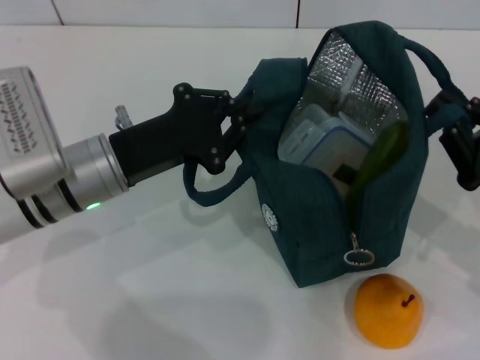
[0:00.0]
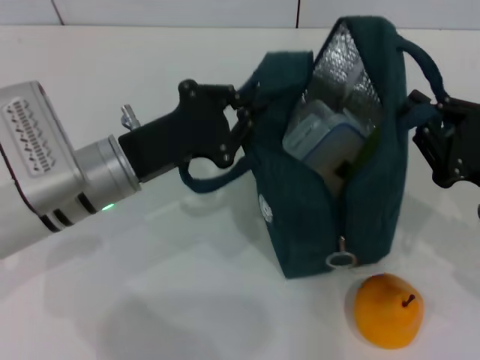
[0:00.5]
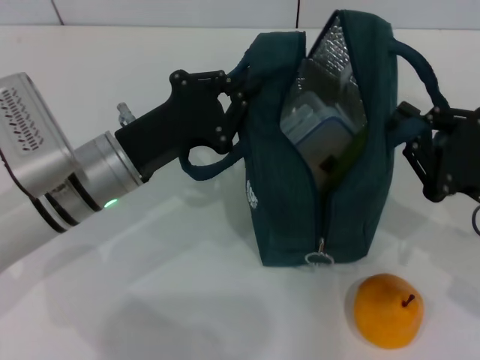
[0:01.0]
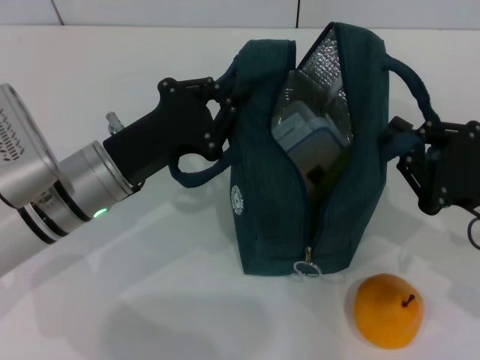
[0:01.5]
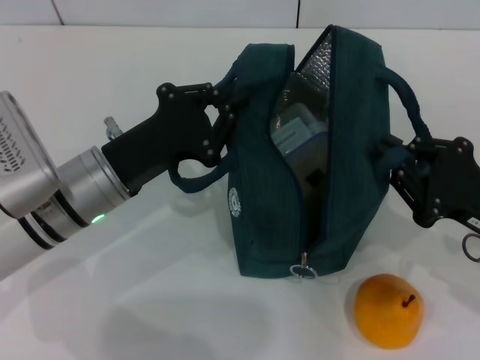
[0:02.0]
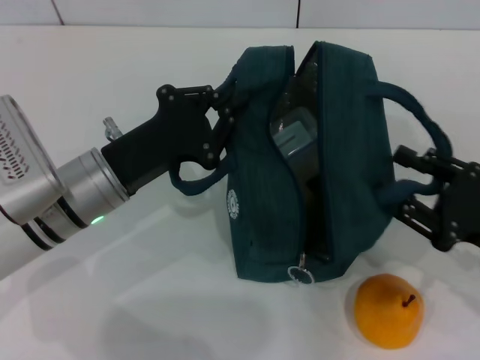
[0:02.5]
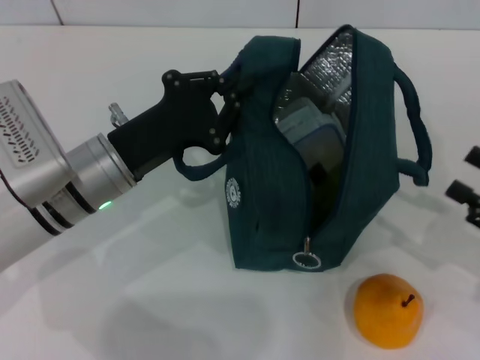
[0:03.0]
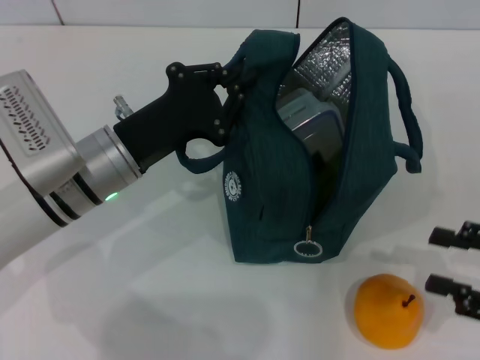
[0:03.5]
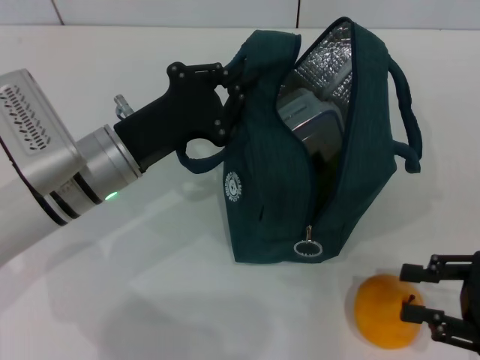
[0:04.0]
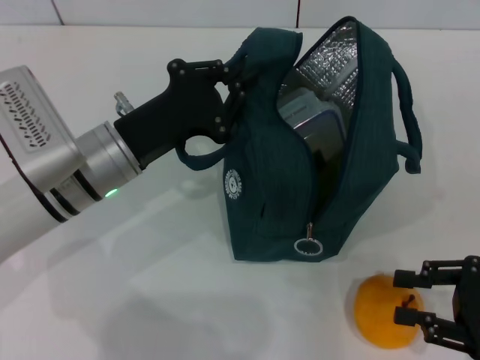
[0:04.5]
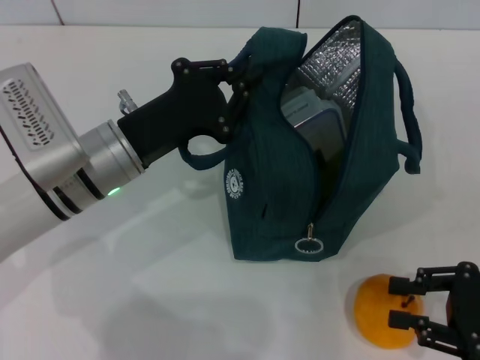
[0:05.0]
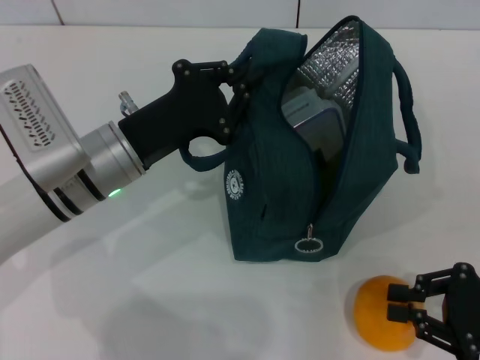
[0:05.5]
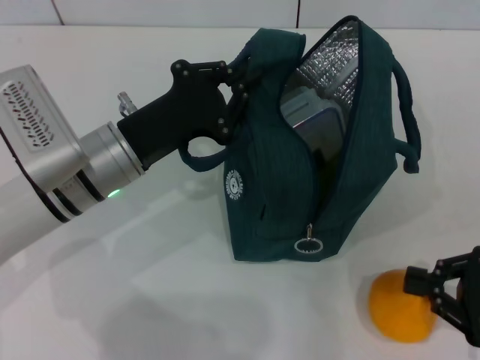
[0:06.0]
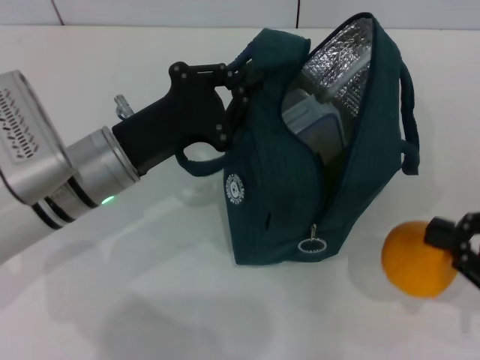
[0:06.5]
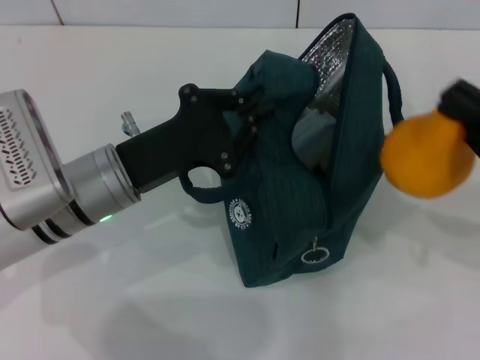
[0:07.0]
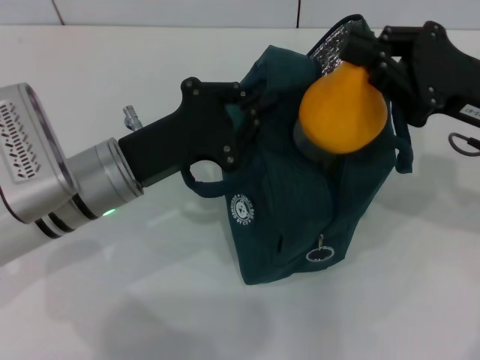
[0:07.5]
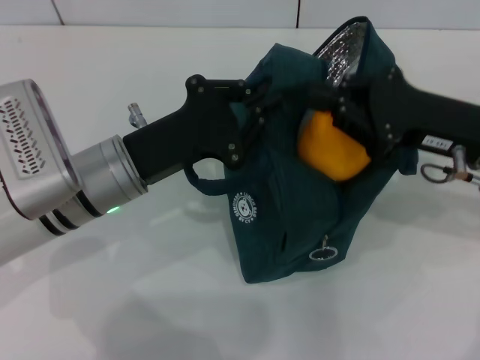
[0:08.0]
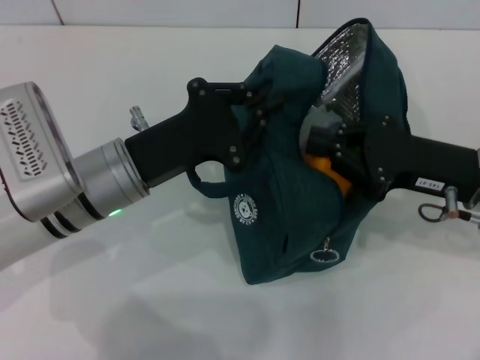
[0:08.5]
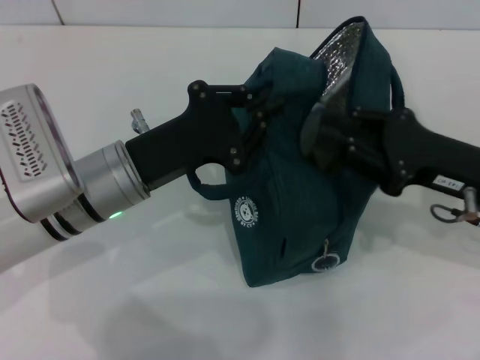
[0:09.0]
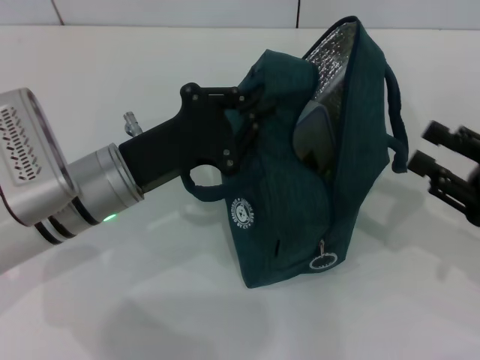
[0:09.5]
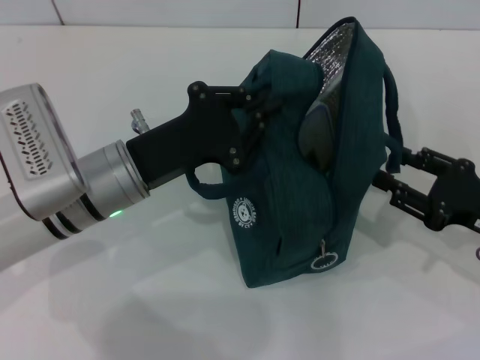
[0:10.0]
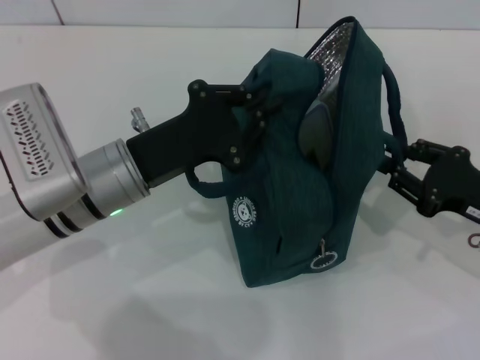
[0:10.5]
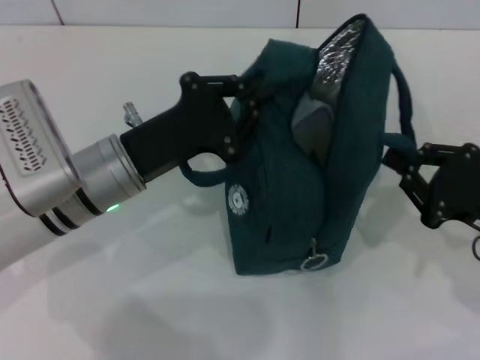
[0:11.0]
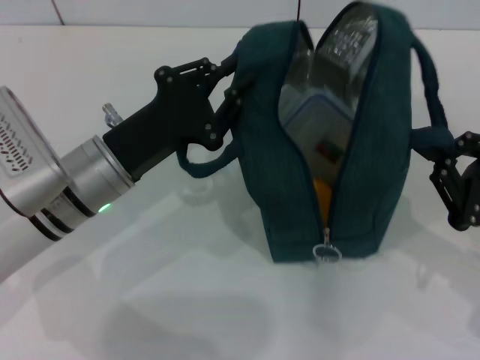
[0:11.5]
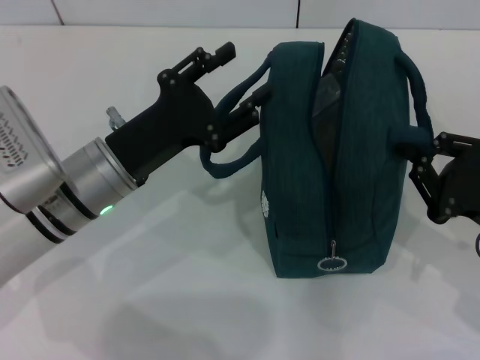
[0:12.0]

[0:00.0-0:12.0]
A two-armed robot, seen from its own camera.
Step, 0.0 to 5.0 s: Grab the pear with your right hand.
Step, 9.5 to 11.5 s: Hold the lunch bag with your left hand.
2.0 to 4.0 s: The right gripper travels to the right by about 5 cm, and opens its fingers.
4.0 to 6.0 s: The right gripper closes its fingers.
6.0 to 8.0 s: The right gripper is displaced forward, to the left and upward by approximately 15 cm.
8.0 to 10.0 s: The right gripper heads downward, to the right and backward, covering approximately 10 cm, and opens.
10.0 to 12.0 s: The right gripper closes up, while the left gripper opens its fingers.

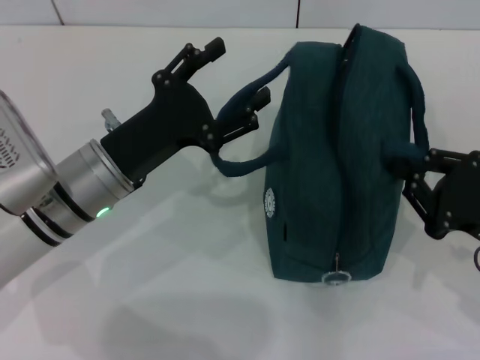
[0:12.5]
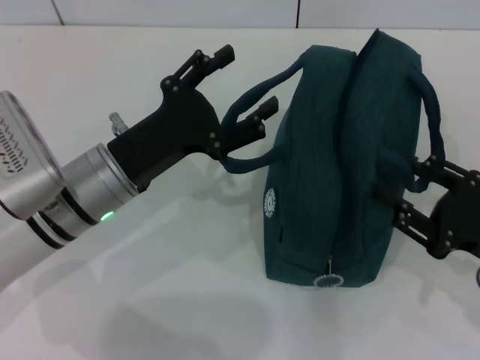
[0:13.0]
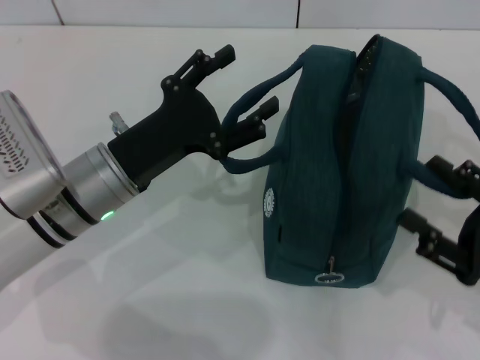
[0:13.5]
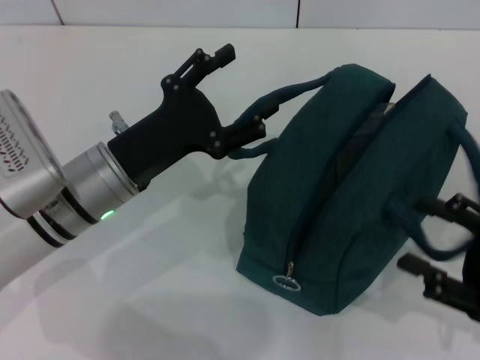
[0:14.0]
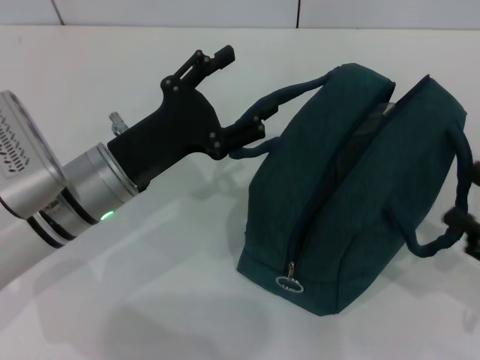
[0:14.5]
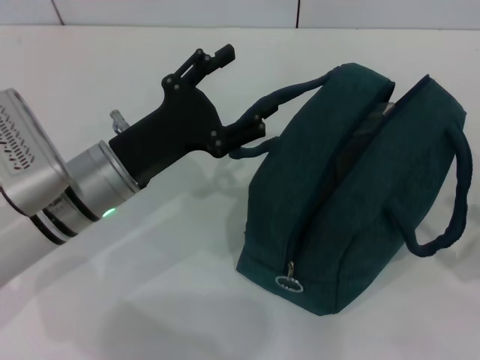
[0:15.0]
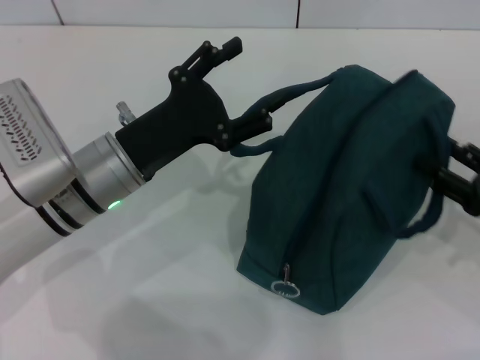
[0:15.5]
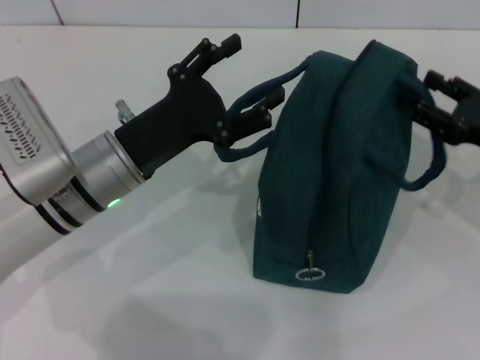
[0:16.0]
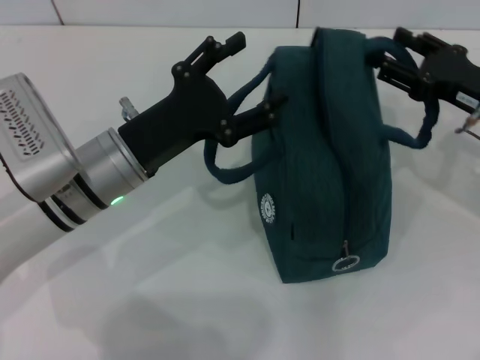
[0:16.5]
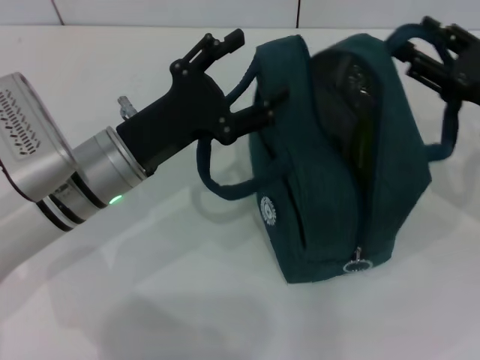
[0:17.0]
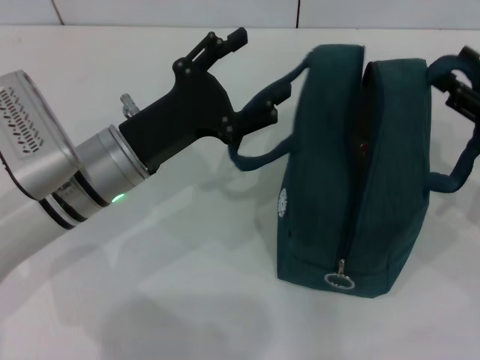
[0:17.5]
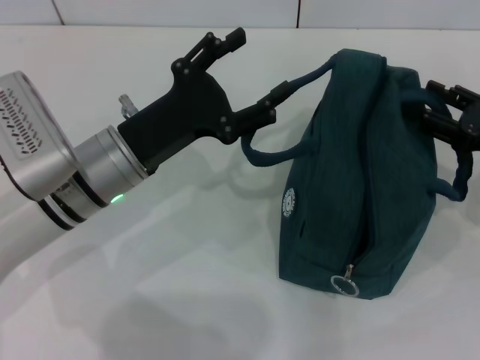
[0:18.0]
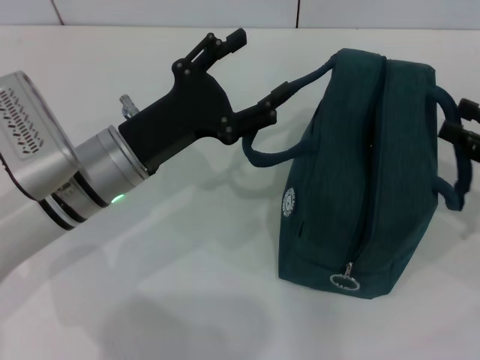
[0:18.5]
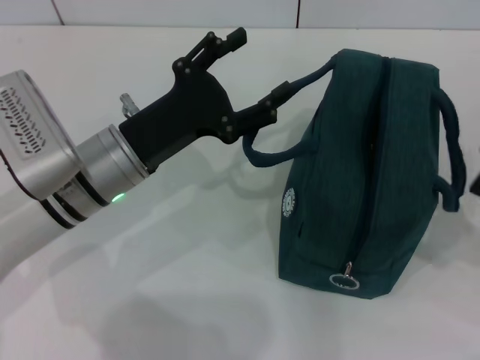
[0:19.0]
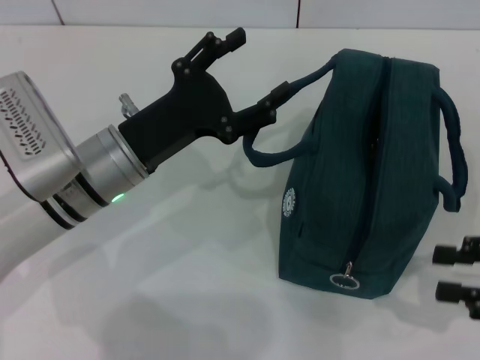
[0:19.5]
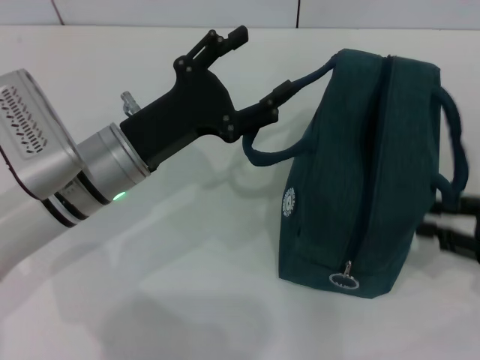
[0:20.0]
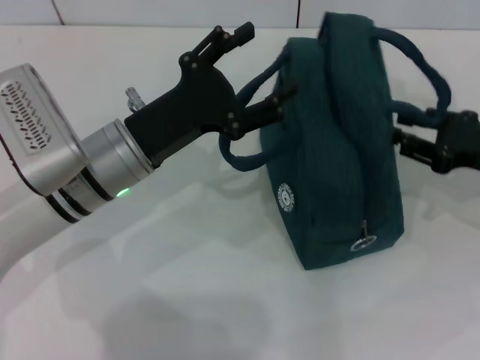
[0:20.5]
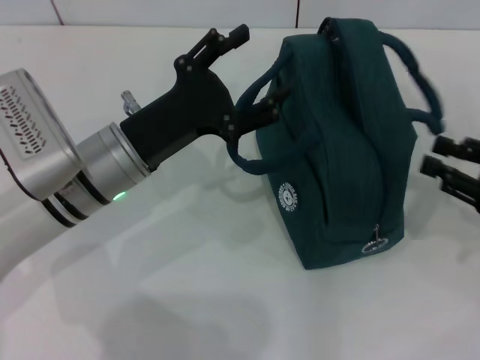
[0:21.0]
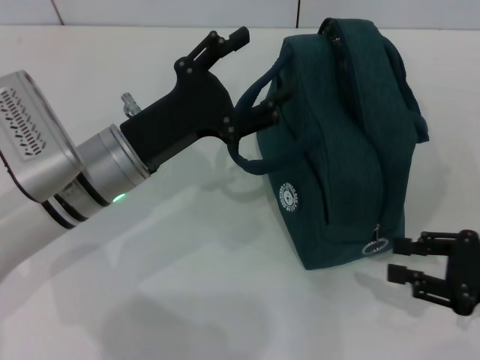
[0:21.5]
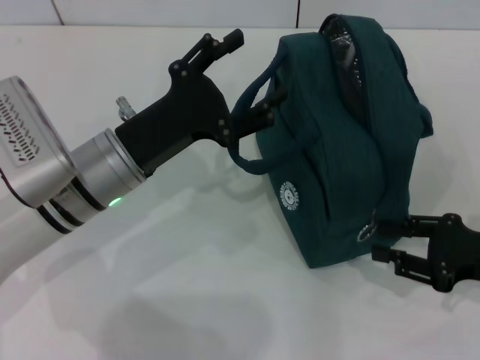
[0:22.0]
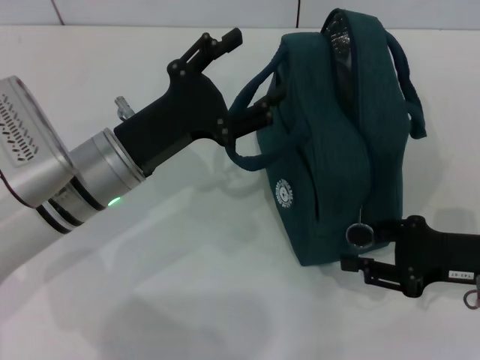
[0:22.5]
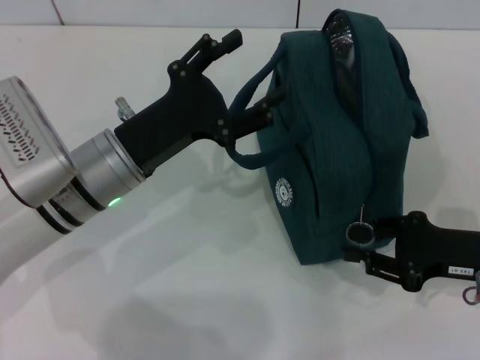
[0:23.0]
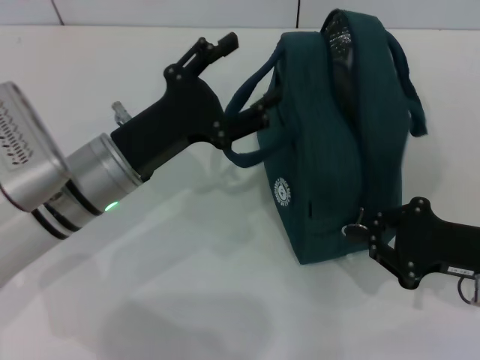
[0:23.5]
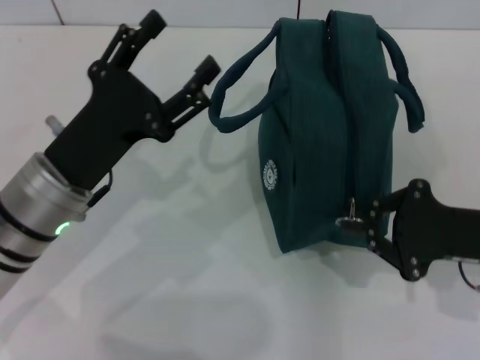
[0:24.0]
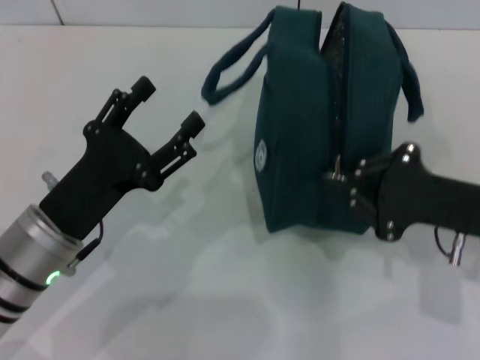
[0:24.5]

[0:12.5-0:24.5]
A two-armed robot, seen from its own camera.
Step, 12.5 to 19.0 s: Hold the lunch bag with your right hand.
12.5 to 14.5 s: The right gripper goes roughly 5 cm backward, and opens its fingers.
14.5 to 16.5 s: The right gripper heads forward, covering approximately 15 cm.
16.5 to 18.5 s: The right gripper is displaced backward and to the right by approximately 10 cm.
18.5 to 20.5 s: The right gripper shifts by roughly 5 cm.
20.5 to 22.5 s: The right gripper shifts approximately 5 cm backward.
22.5 to 24.5 s: The left gripper goes some 5 cm backward. Meanwhile the right gripper closes.

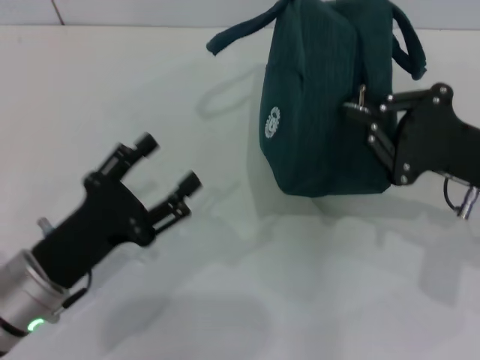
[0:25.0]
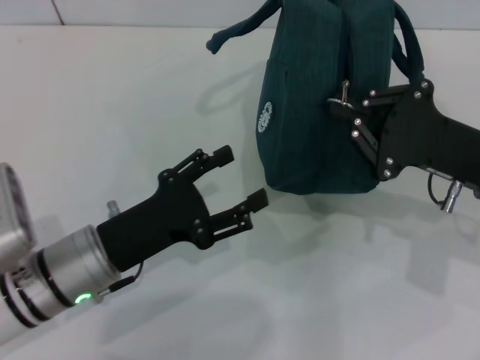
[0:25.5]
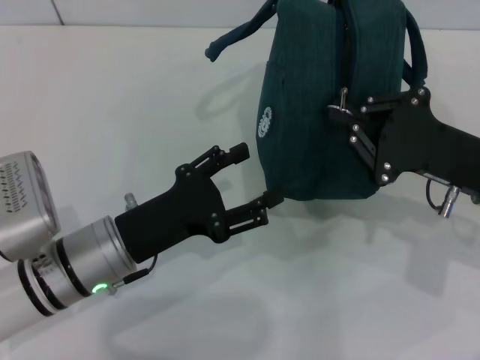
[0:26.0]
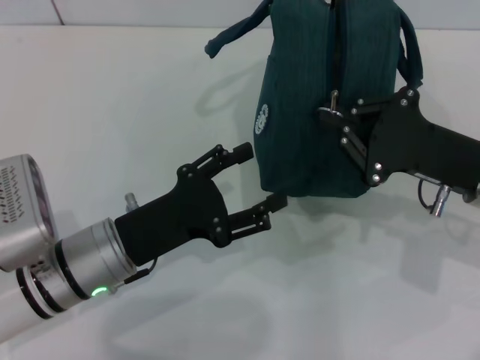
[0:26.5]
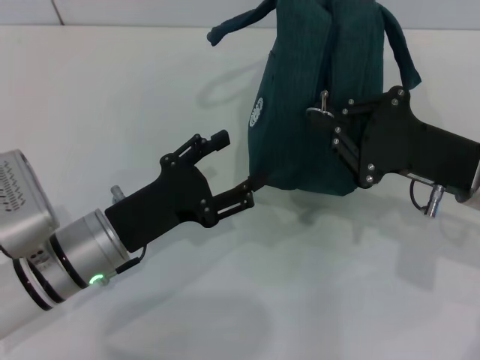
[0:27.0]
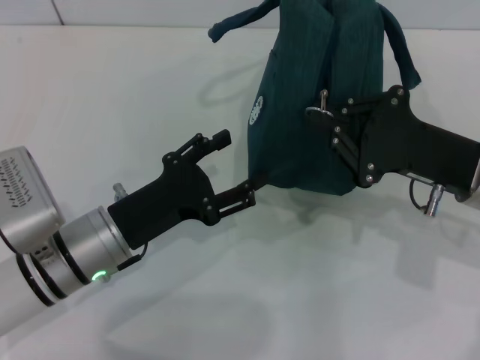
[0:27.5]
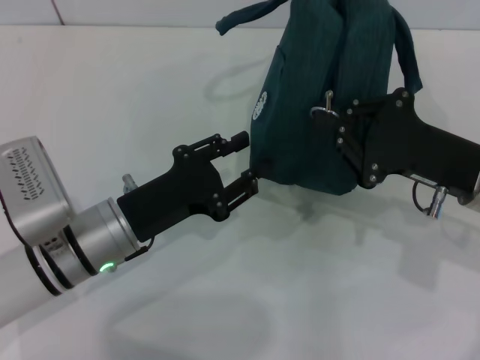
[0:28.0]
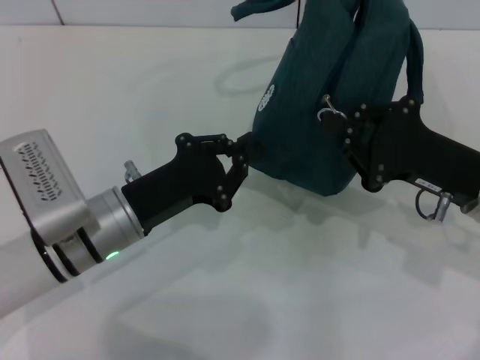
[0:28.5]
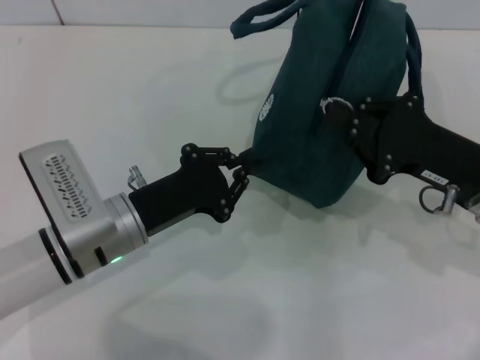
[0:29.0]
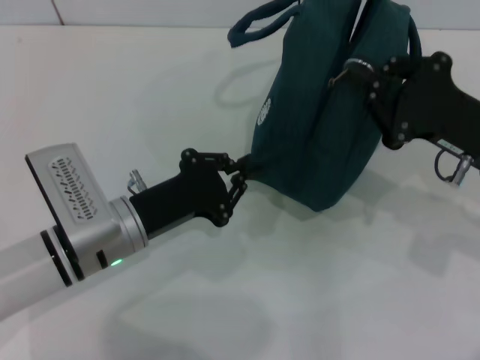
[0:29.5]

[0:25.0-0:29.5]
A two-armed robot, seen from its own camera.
25.0 to 27.0 s: The left gripper ends up approximately 5 cm from where it was.
27.0 to 29.5 s: The left gripper closes.
